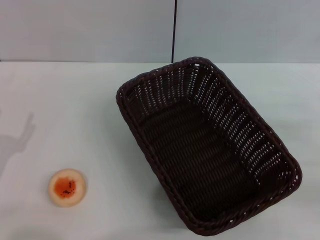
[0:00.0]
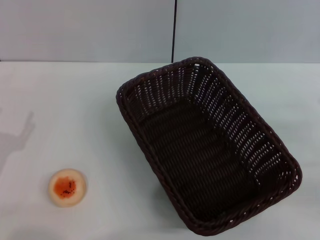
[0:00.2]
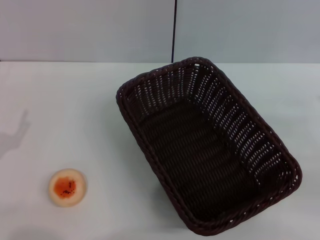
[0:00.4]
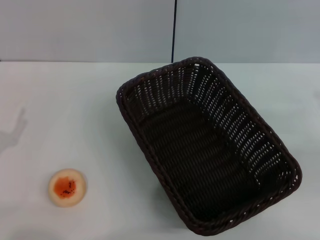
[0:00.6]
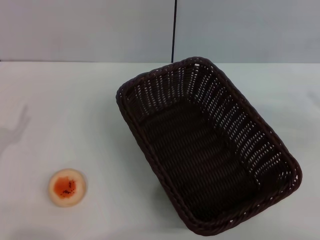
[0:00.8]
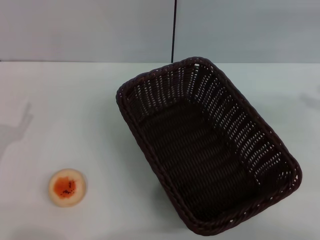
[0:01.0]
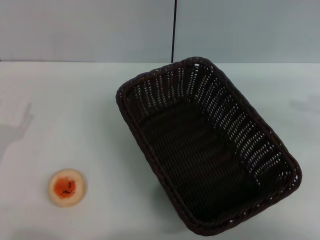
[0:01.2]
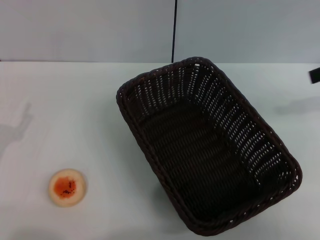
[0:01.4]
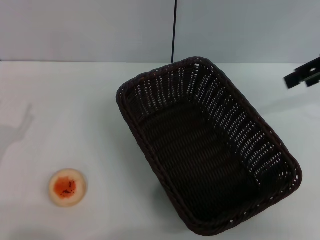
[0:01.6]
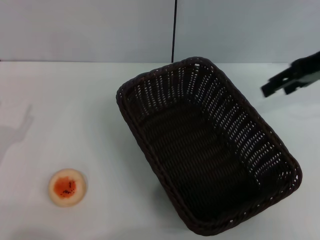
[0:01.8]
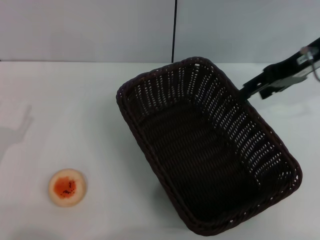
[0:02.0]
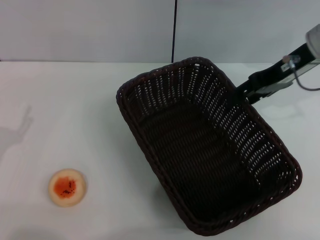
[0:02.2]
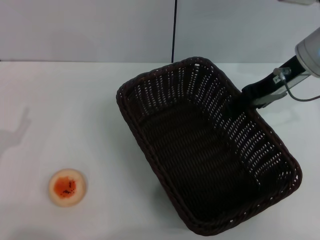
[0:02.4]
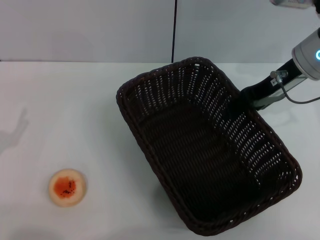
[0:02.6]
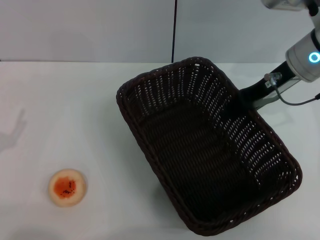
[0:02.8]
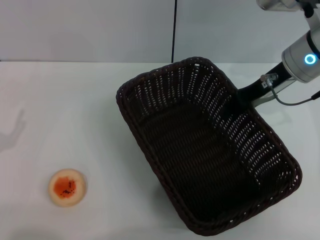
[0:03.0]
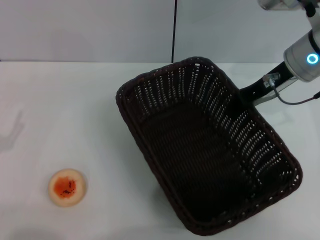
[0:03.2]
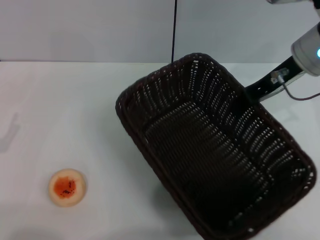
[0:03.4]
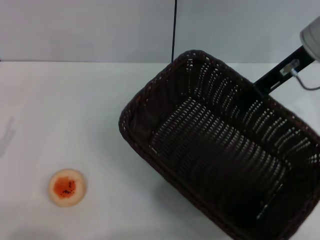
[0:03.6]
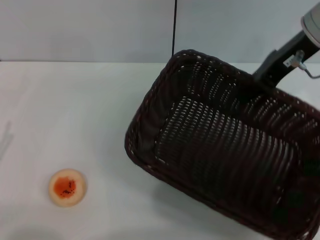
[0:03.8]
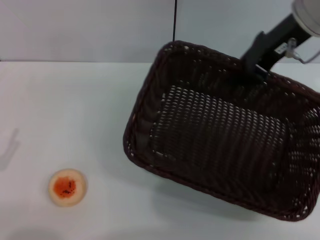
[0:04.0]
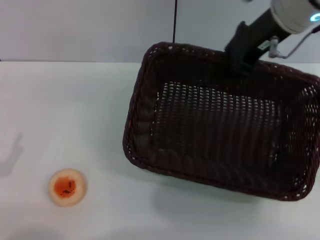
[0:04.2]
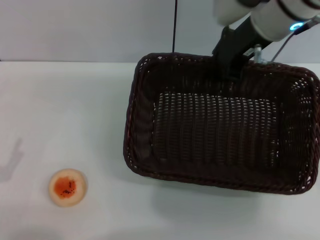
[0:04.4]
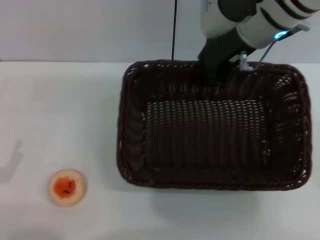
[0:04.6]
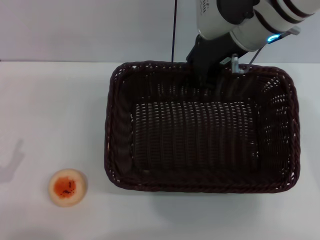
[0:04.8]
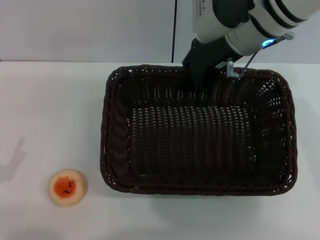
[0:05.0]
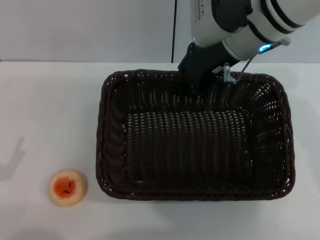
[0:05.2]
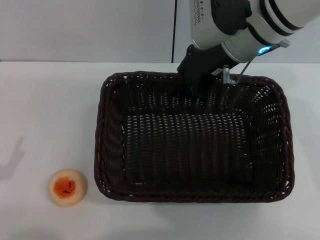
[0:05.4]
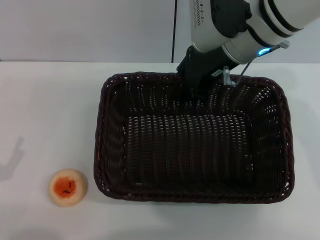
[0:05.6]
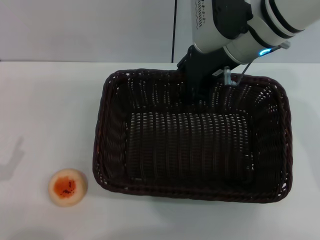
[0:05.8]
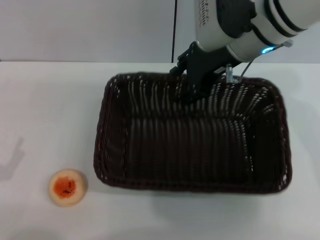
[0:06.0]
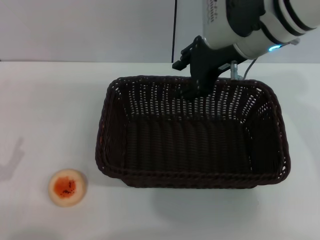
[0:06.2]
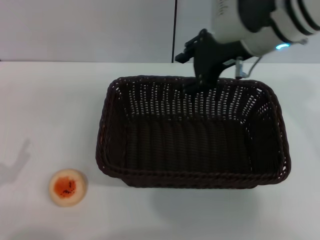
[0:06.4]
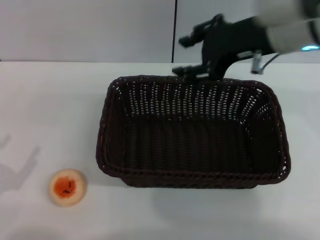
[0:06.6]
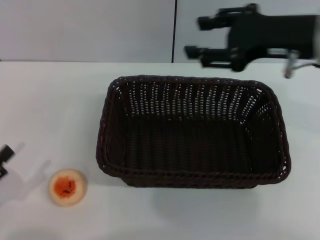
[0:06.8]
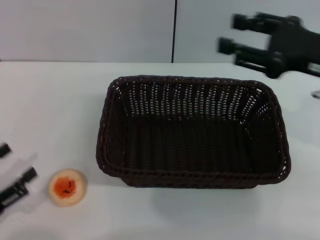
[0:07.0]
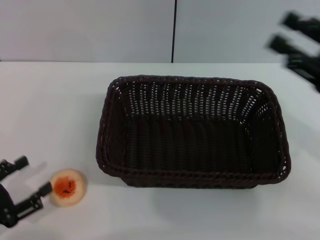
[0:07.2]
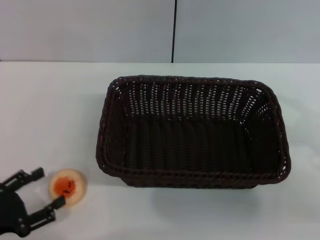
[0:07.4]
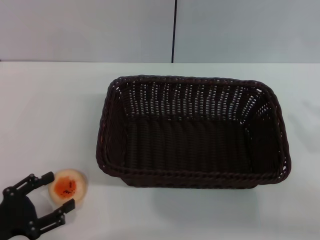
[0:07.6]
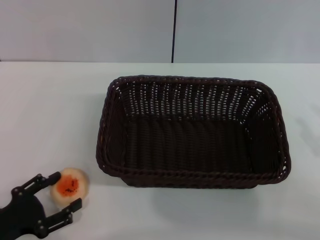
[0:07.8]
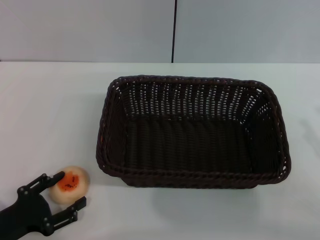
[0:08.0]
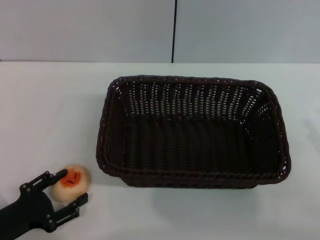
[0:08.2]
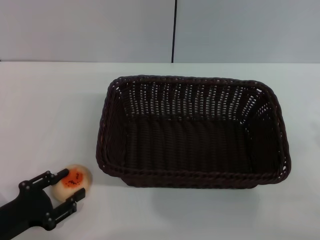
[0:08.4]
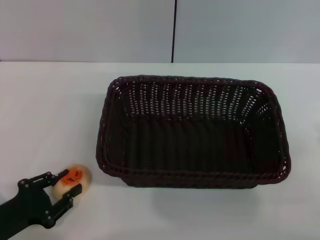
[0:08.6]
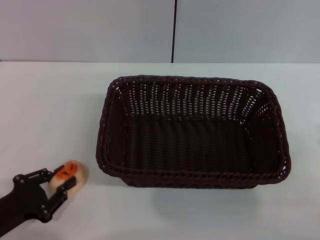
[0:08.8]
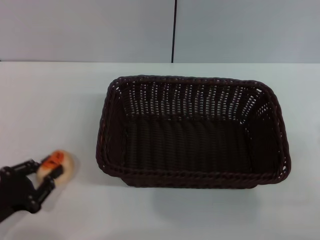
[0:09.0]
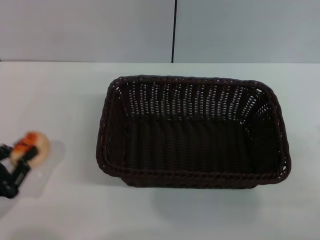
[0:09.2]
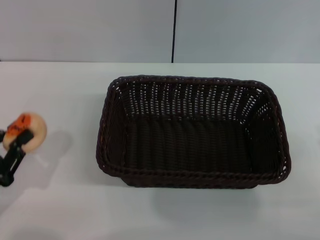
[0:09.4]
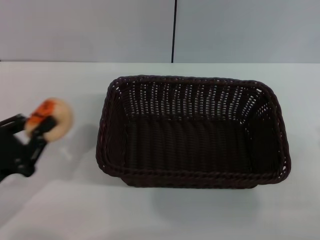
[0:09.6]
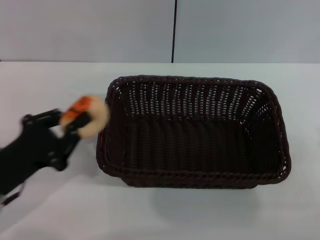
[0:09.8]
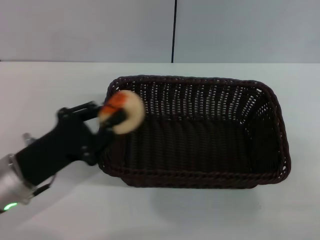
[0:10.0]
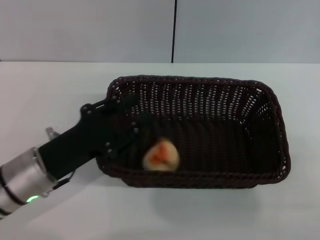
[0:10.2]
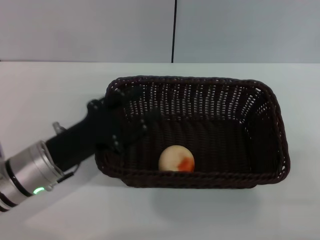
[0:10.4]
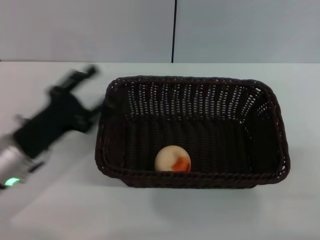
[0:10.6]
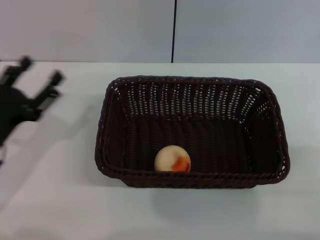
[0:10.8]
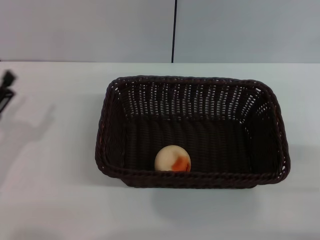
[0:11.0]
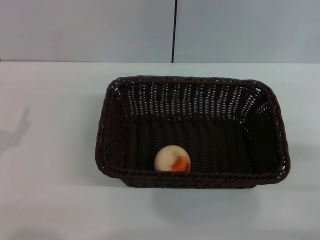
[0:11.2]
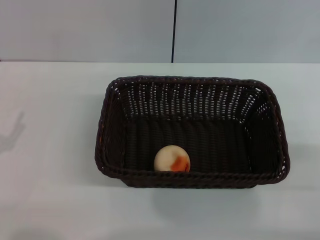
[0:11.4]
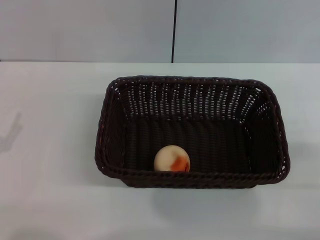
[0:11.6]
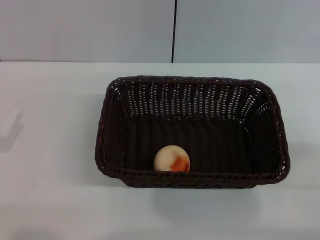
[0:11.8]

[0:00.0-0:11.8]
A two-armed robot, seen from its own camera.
Step, 0:00.0 to 0:06.2: Move the basket to the center of view with the right gripper.
Step, 0:06.6 to 0:09.2: Pick up the egg yolk pastry with the left gripper.
Step, 0:09.4 to 0:10.4: Place the egg yolk pastry into the basket with the left gripper.
0:00.0 to 0:01.4: The right gripper travels upward and forward by about 20 cm.
0:01.4 to 0:03.0: The right gripper moves to the left and downward, some 15 cm.
0:03.0 to 0:04.4: The left gripper travels backward by roughly 5 cm; the right gripper goes some 10 cm to the left and upward, and closes up.
0:04.4 to 0:06.0: The right gripper opens up.
0:06.0 to 0:07.4: The right gripper moves to the right, backward and downward, approximately 30 cm.
0:07.4 to 0:08.8: The left gripper closes up.
0:08.8 to 0:10.4: The left gripper is displaced to the right and forward by about 15 cm, and closes, then reopens.
0:10.4 to 0:11.8: The left gripper heads to the left and backward, covering approximately 15 cm, and opens up.

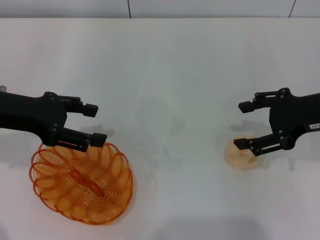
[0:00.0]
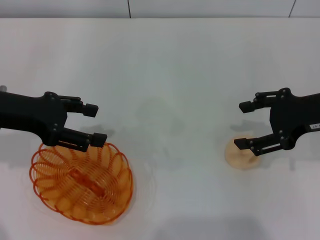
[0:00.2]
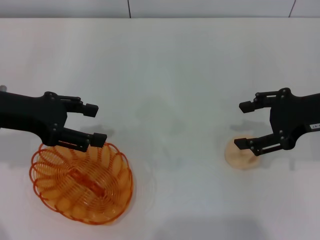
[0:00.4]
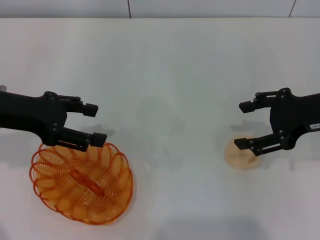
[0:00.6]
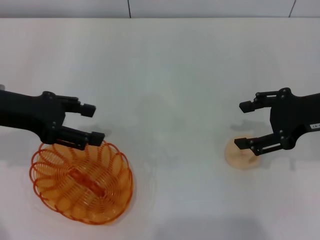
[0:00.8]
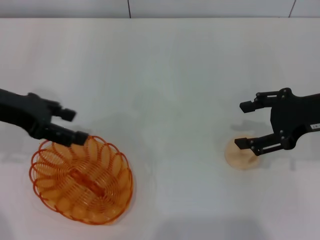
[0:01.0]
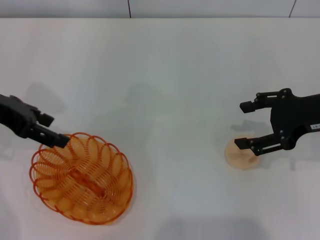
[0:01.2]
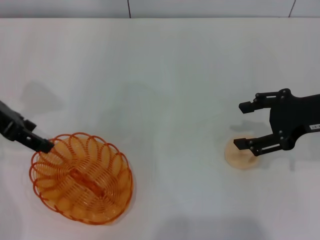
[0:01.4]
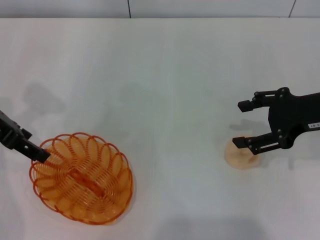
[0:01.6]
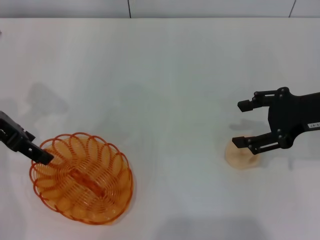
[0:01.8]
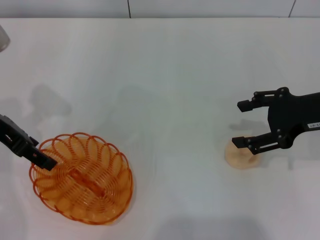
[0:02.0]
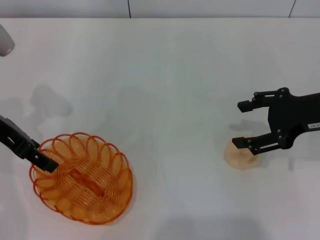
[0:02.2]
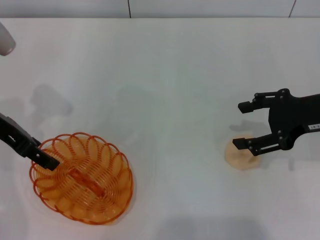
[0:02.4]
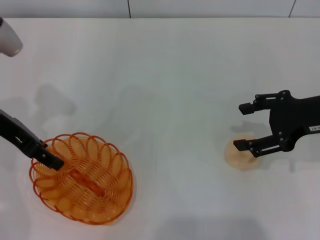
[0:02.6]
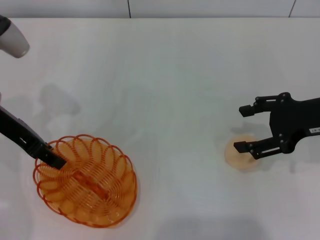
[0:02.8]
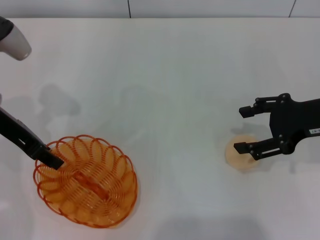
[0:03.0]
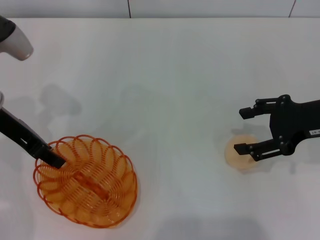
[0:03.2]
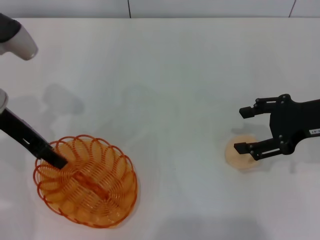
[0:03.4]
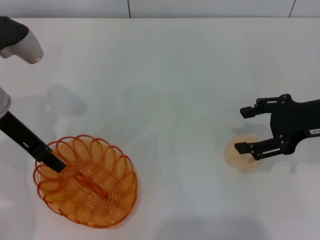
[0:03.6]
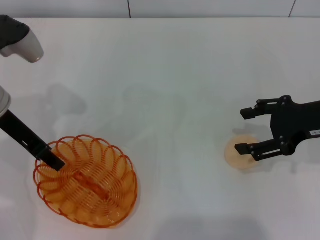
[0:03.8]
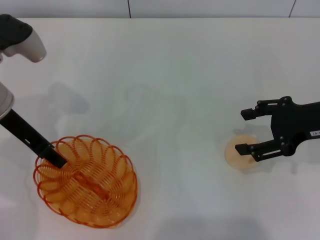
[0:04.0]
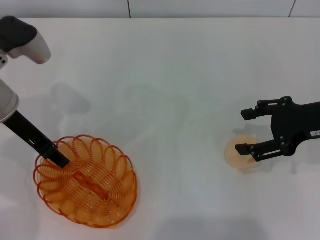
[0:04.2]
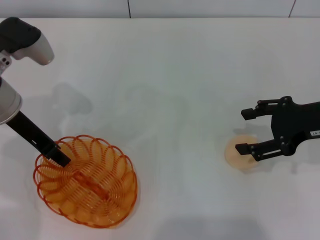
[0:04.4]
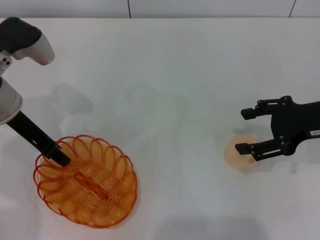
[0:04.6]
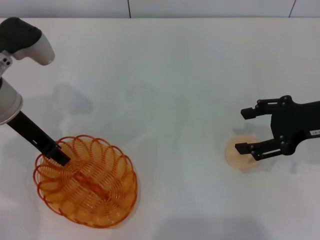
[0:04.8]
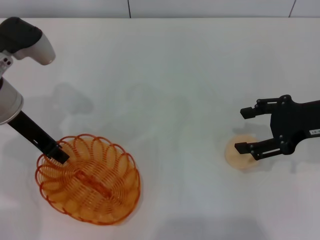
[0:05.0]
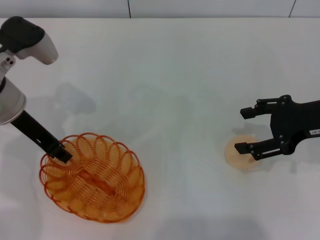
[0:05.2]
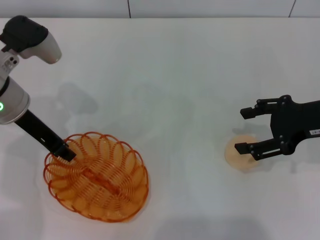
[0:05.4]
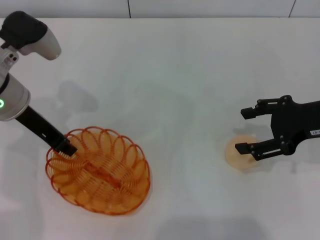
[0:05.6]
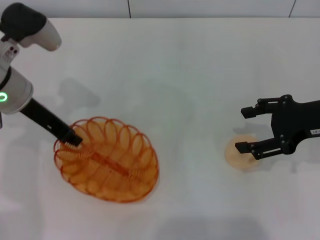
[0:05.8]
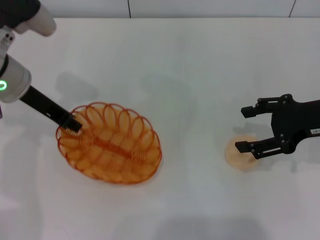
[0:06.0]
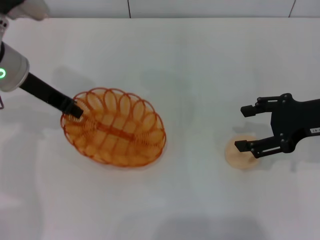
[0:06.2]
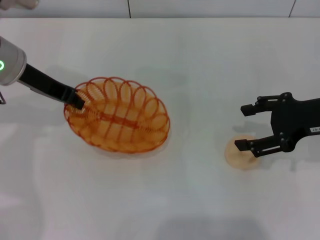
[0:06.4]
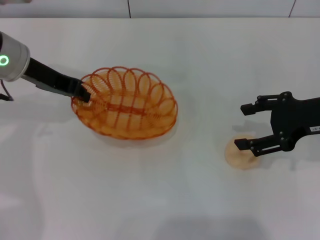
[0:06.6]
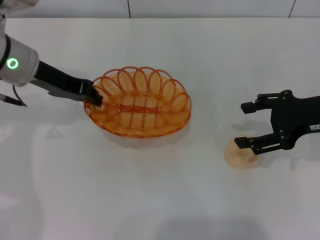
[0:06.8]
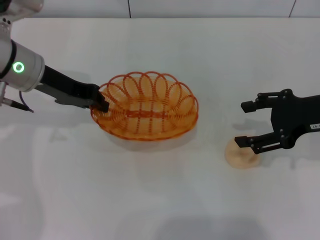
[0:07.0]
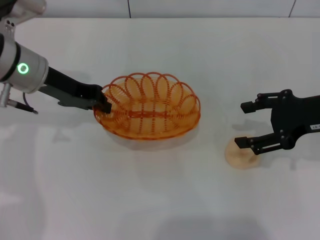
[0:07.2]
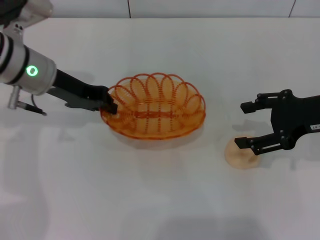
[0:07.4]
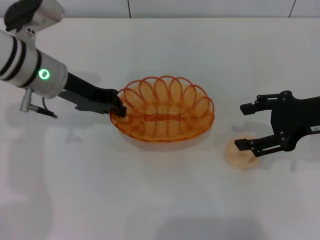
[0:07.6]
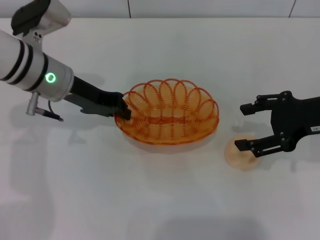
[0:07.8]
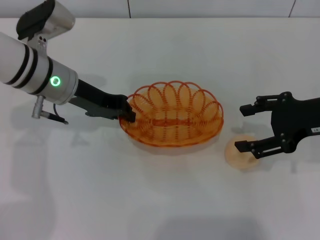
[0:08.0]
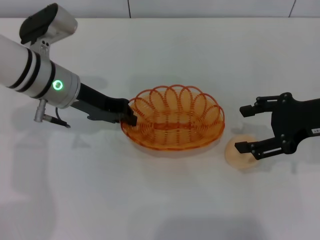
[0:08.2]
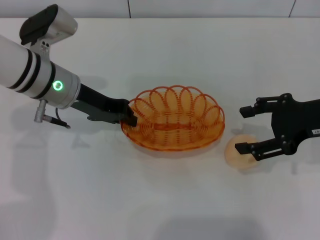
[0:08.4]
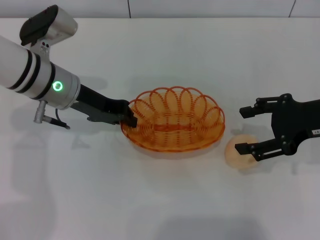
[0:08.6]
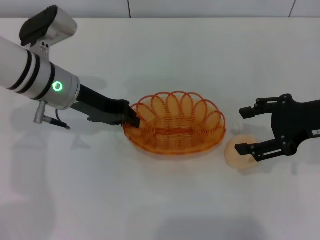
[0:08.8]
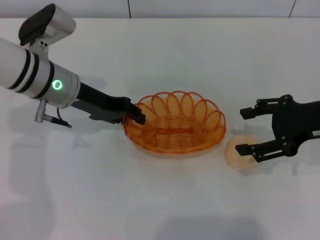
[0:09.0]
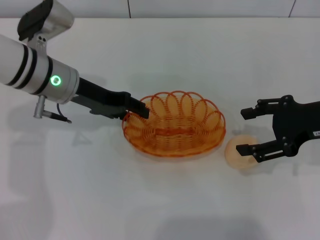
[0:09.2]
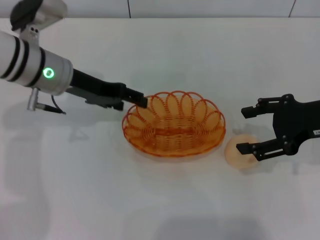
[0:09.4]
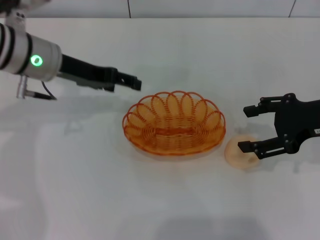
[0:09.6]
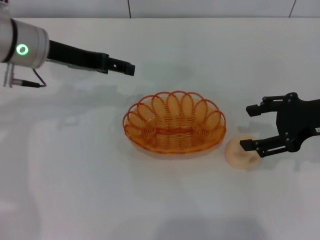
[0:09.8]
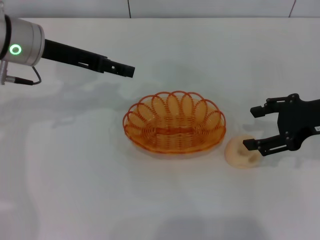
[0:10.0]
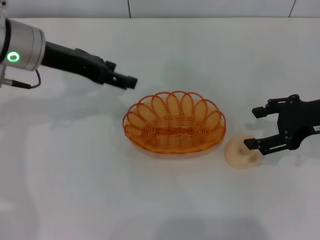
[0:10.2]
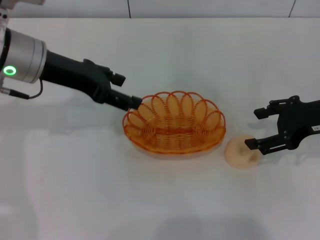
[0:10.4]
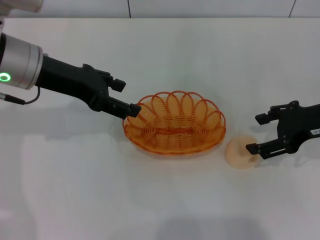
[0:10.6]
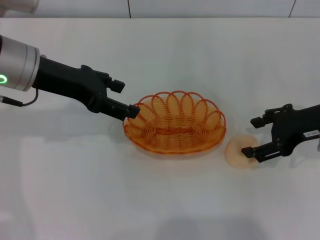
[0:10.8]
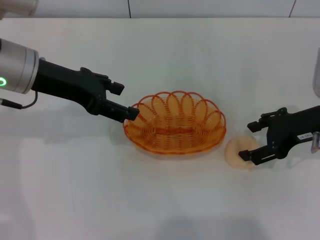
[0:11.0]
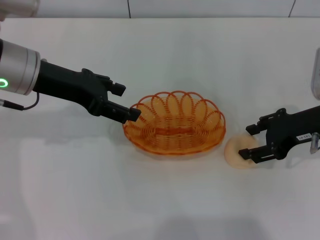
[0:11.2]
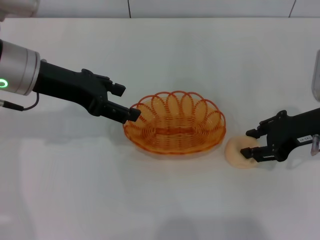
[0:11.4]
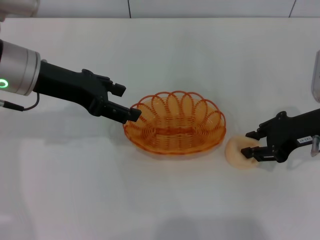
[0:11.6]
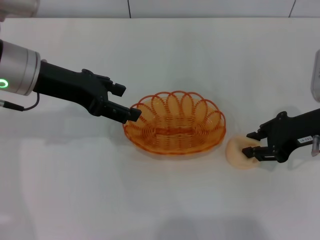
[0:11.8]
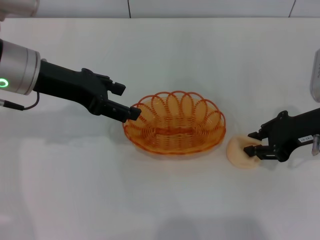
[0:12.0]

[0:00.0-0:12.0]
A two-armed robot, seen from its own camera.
Step, 0:00.0 to 0:06.2: Pick up the basket with the left gripper.
Step, 0:06.4 to 0:11.6: Place the basket in the center of view with the left gripper.
0:01.6 to 0:03.0: The left gripper closes.
0:03.0 to 0:04.4: The grippers move only a little.
0:07.6 to 0:09.0: There are only small adjustments of the grippers.
0:09.0 to 0:10.4: The left gripper is displaced upward by about 5 cm, and opens its fingers.
0:10.4 to 0:12.0: The right gripper closes up.
